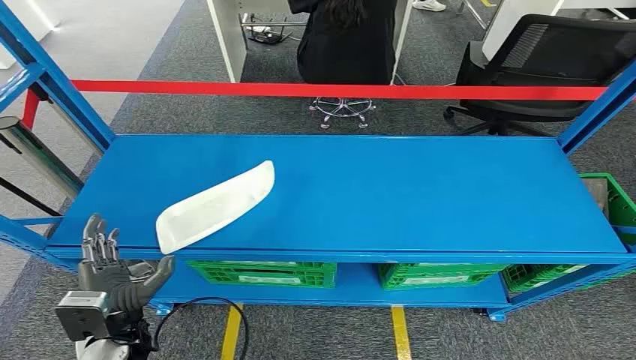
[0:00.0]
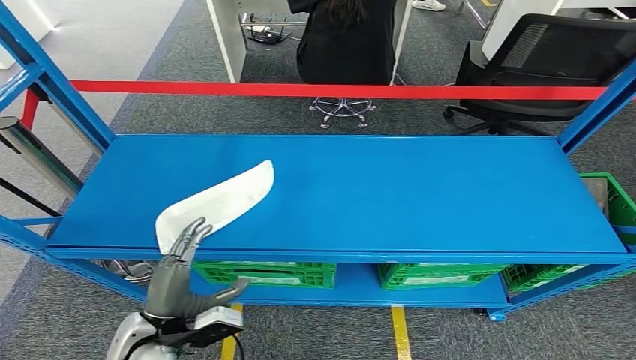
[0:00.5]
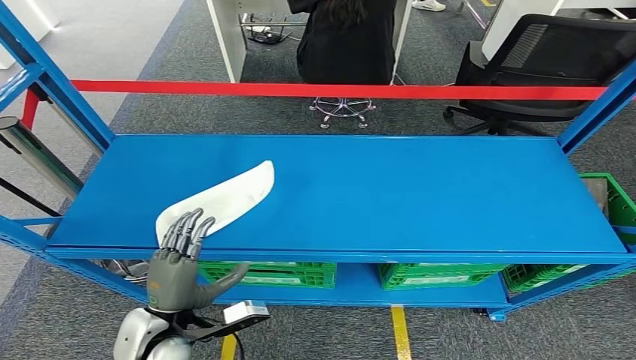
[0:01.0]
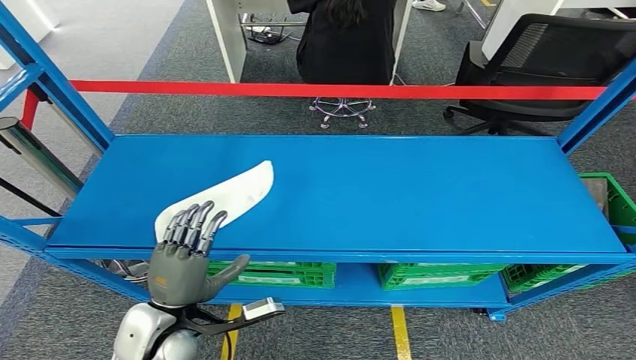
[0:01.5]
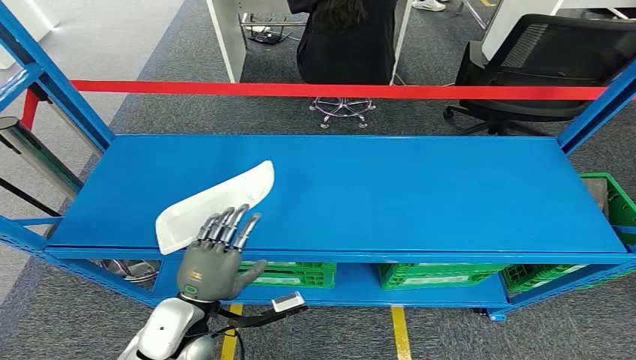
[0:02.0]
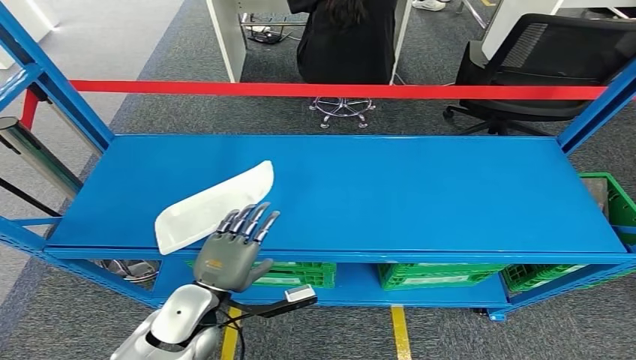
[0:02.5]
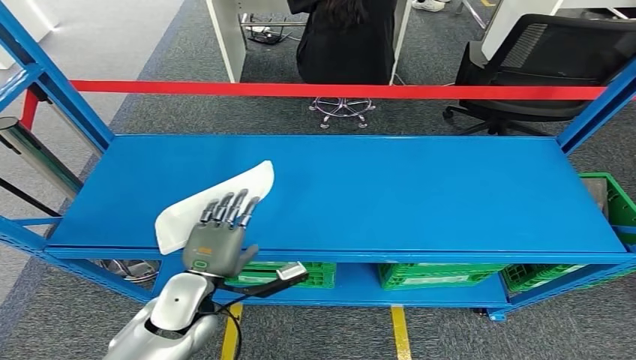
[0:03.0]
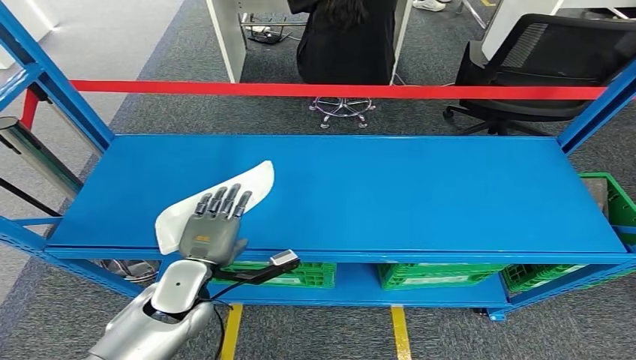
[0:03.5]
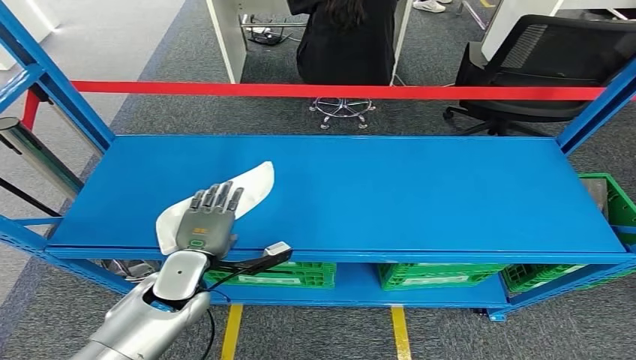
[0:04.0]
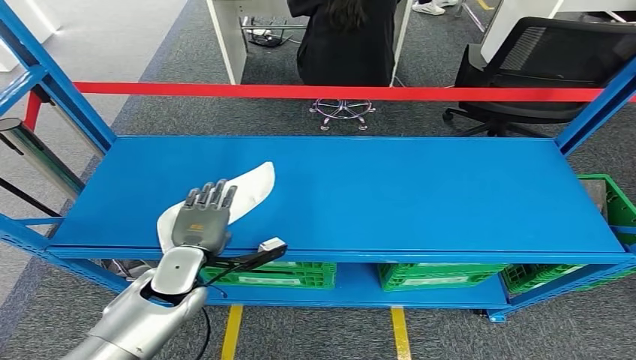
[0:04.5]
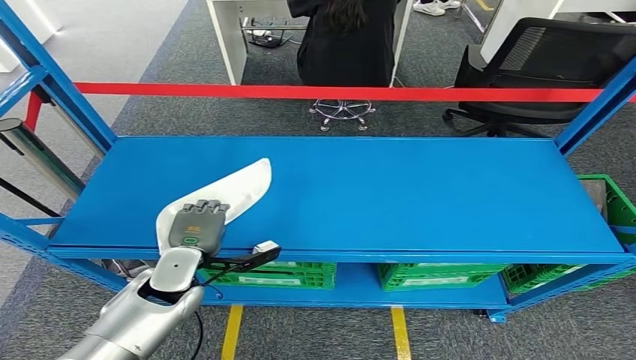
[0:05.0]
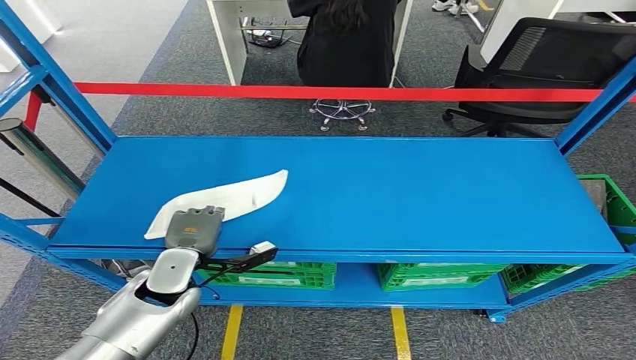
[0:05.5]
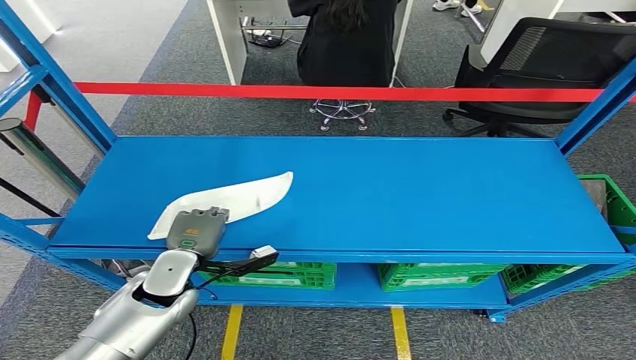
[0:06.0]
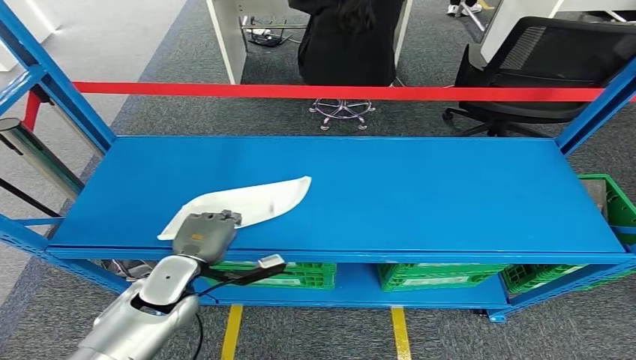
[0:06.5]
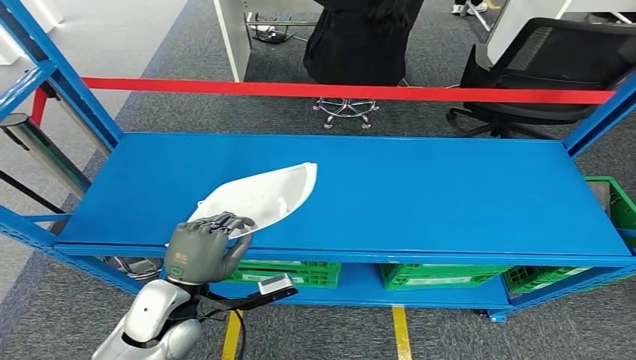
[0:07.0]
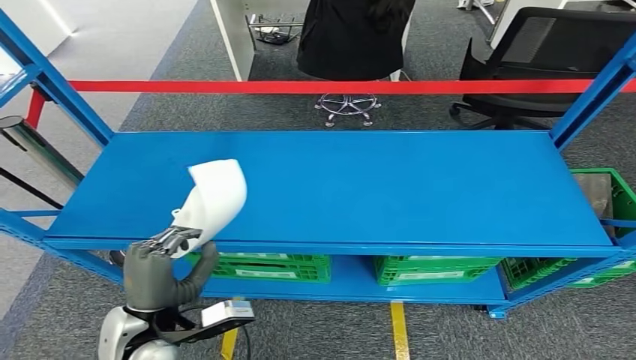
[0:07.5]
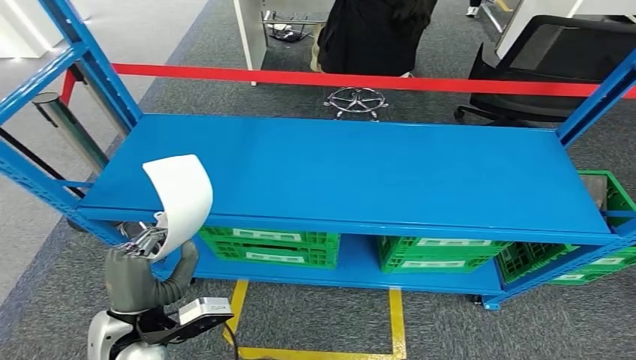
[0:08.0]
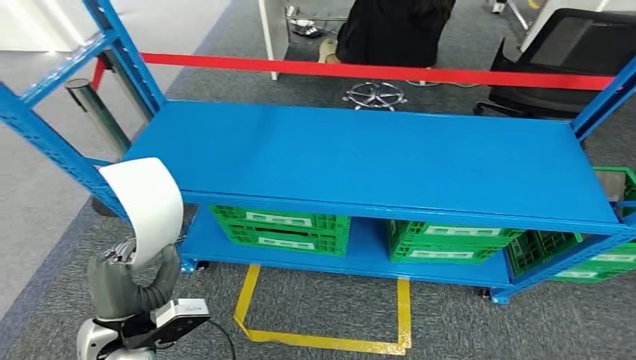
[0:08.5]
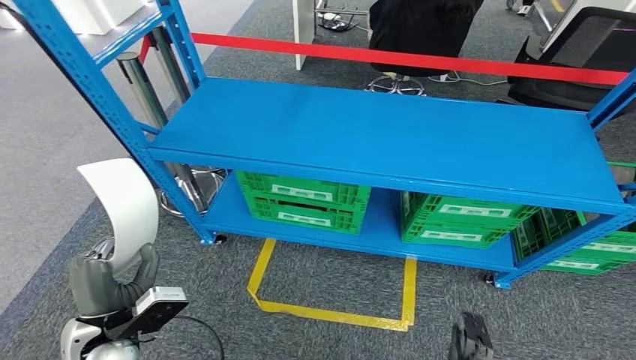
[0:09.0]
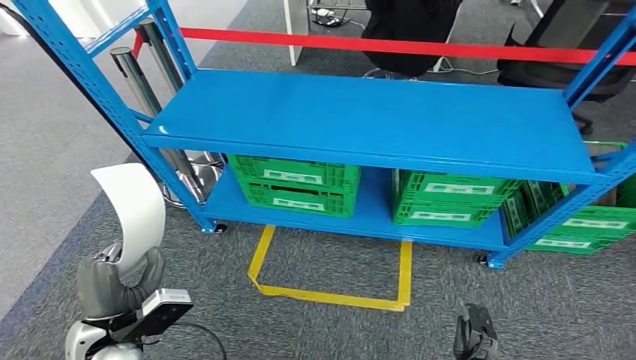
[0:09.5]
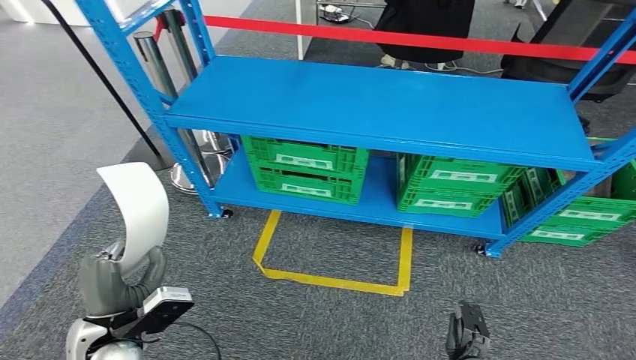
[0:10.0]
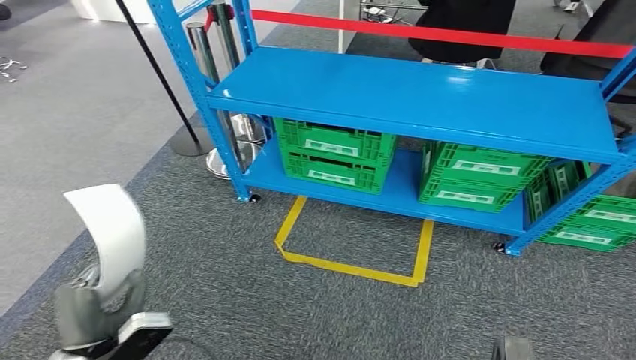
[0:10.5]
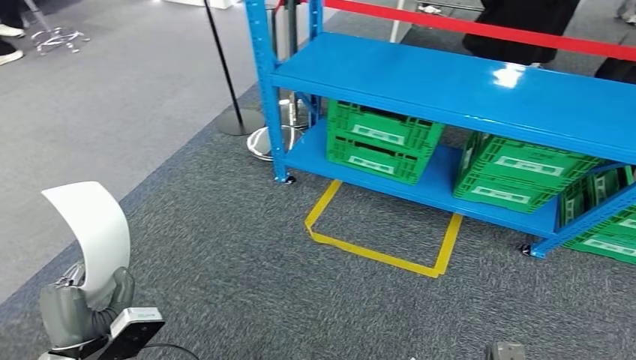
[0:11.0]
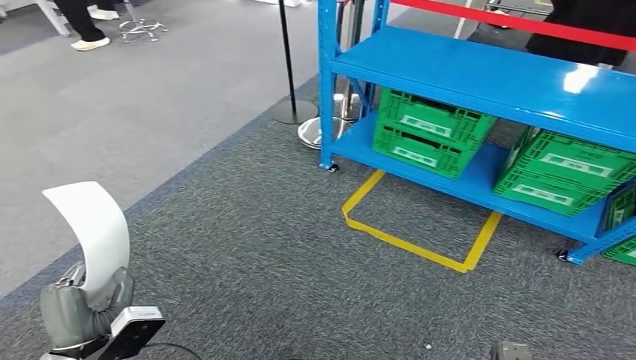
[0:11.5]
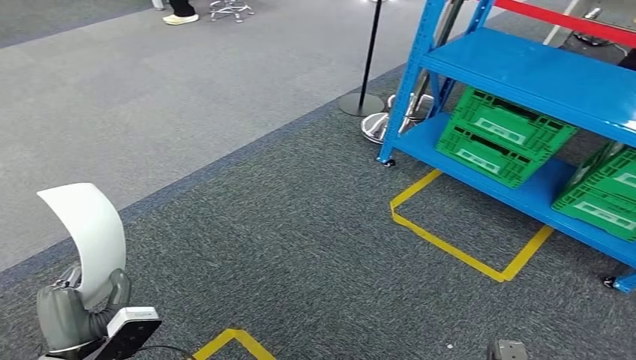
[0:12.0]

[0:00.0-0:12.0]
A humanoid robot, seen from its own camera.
Step, 0:00.0 to 0:07.0: Pick up the small component from the shelf.
0:02.0 to 0:04.0: The left hand moves forward, approximately 10 cm.
0:04.0 to 0:06.0: The hands stay close to where they were, moving slightly.

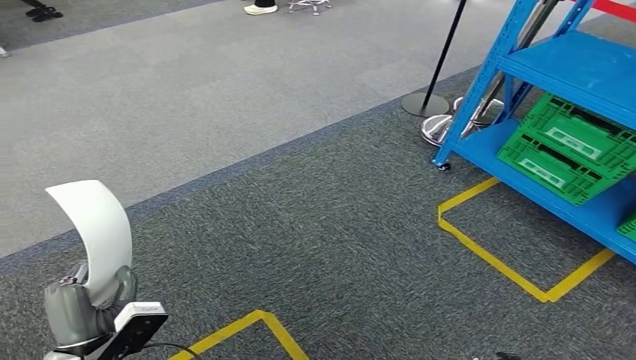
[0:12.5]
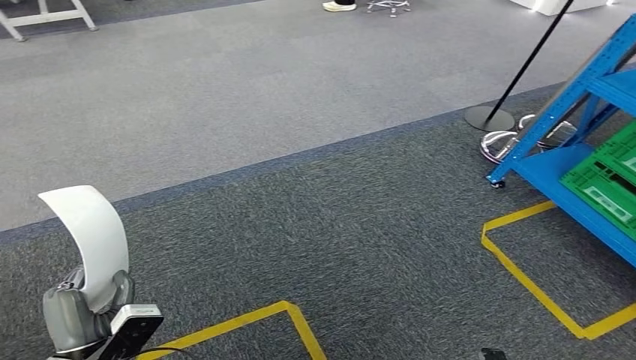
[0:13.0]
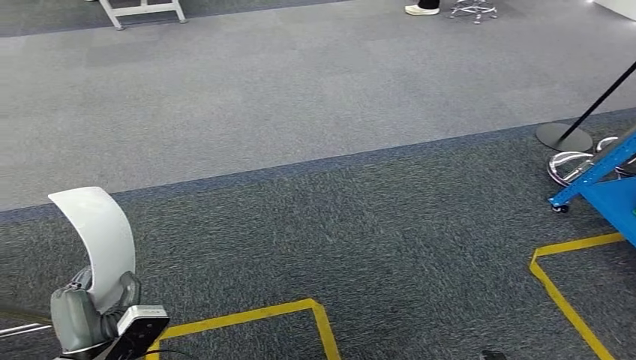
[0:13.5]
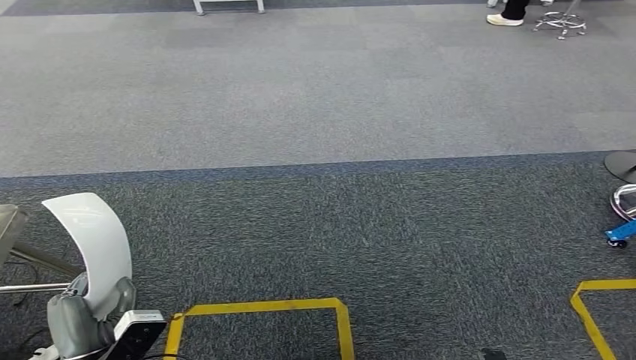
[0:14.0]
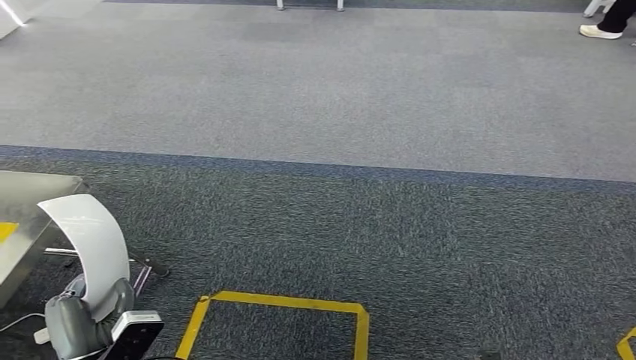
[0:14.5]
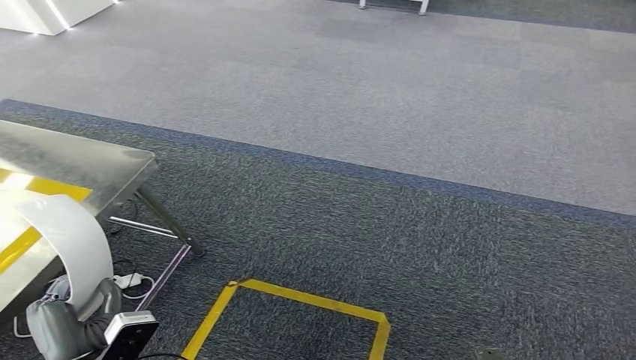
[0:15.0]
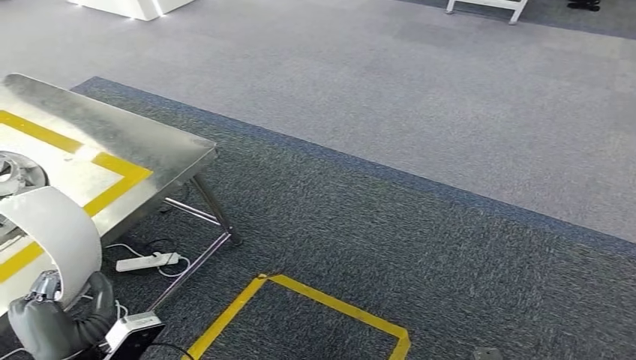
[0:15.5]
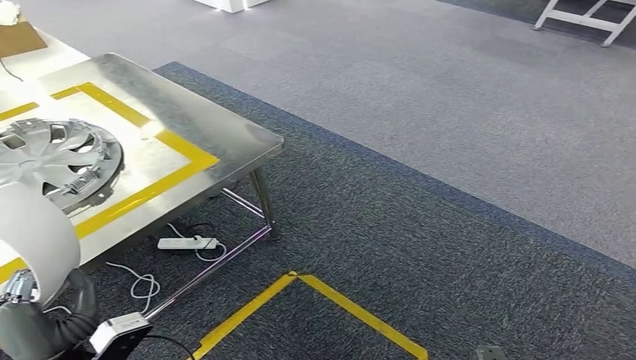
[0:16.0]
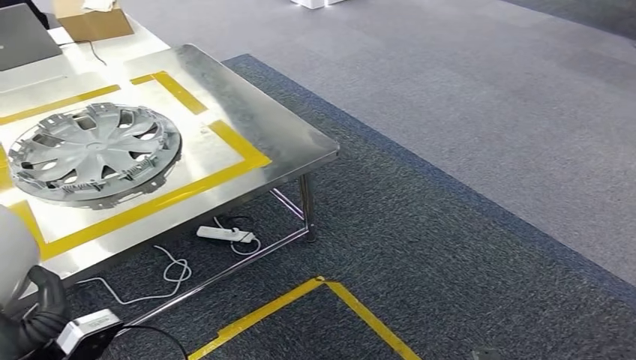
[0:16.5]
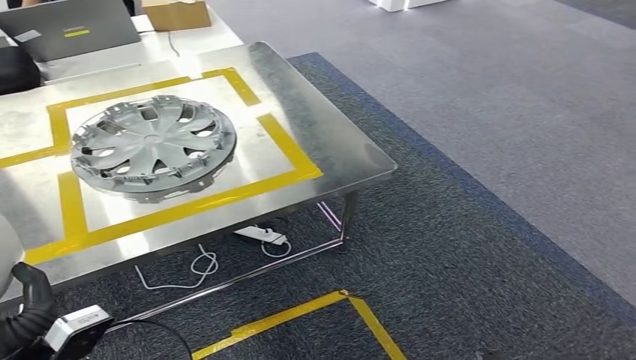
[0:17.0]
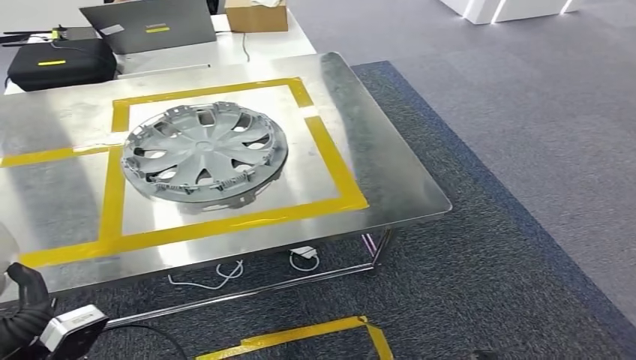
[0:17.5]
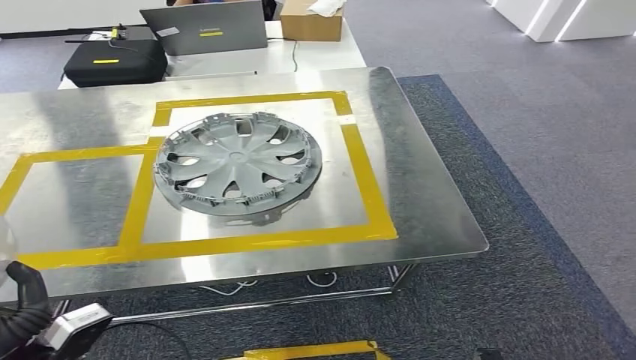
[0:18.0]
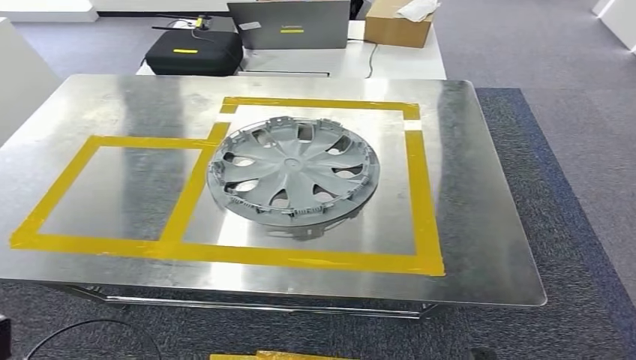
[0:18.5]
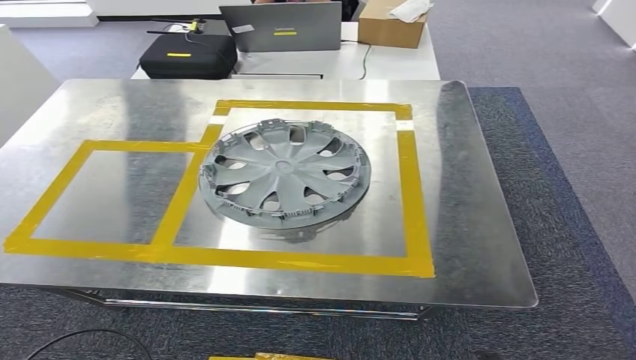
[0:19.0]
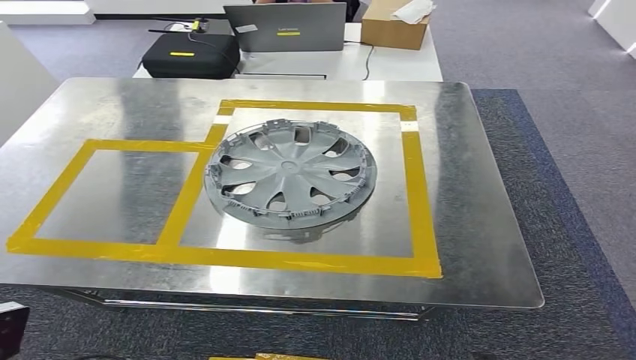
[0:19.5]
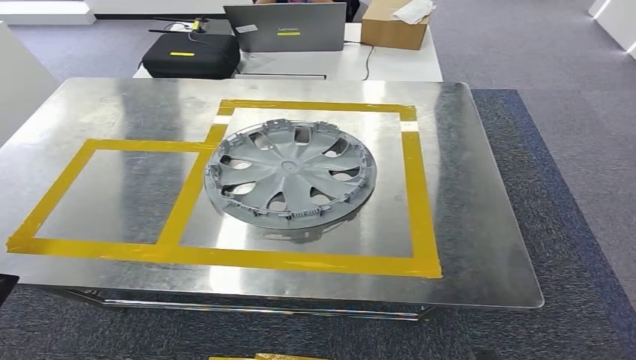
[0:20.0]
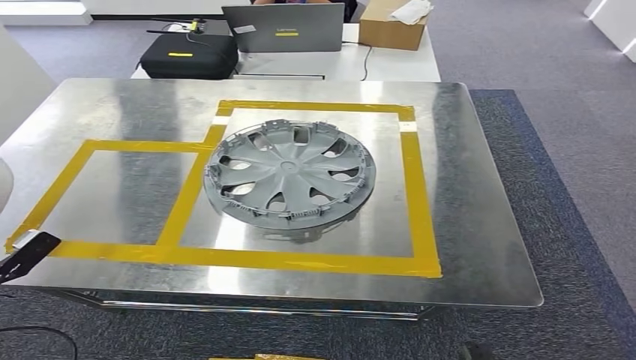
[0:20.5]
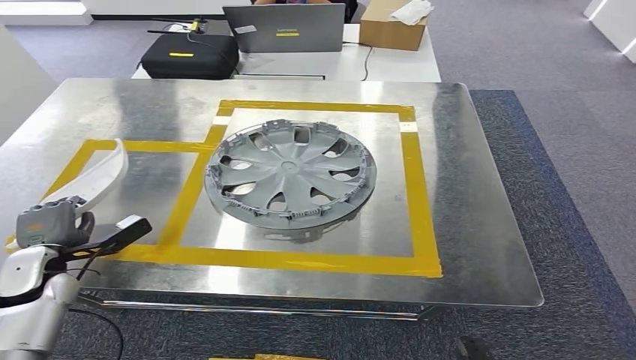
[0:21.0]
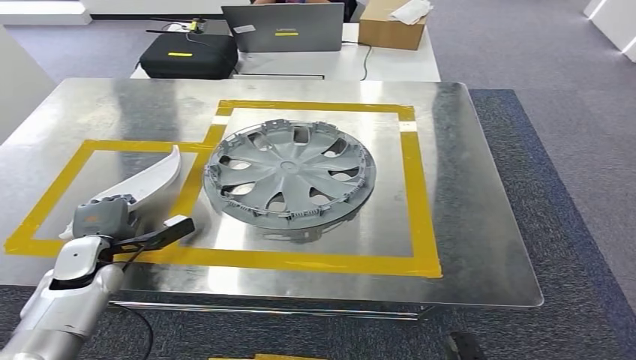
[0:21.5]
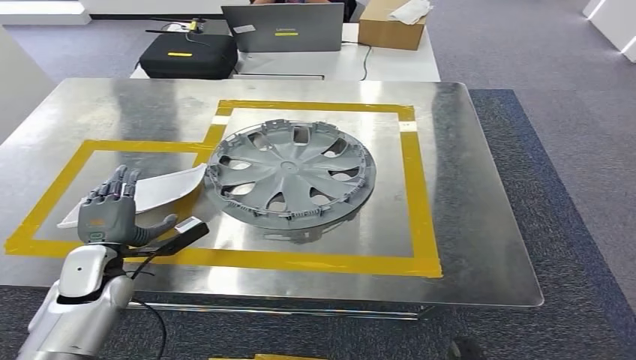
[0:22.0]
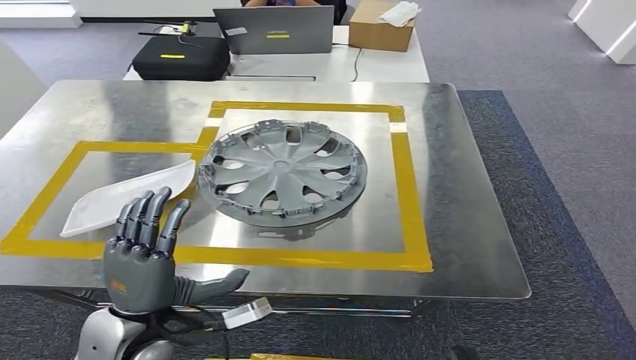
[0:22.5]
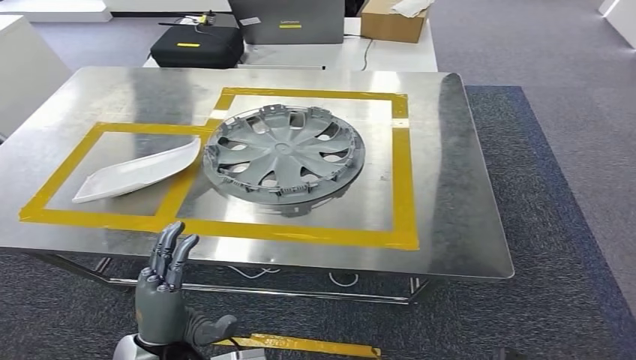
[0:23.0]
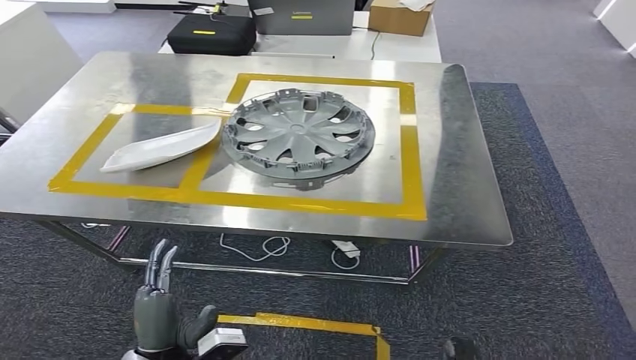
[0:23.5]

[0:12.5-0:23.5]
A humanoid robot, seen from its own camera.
Step, 0:12.5 to 0:17.0: Bring the small component to the front of the workbench.
0:20.0 to 0:21.5: The left hand travels forward and to the right by some 25 cm.
